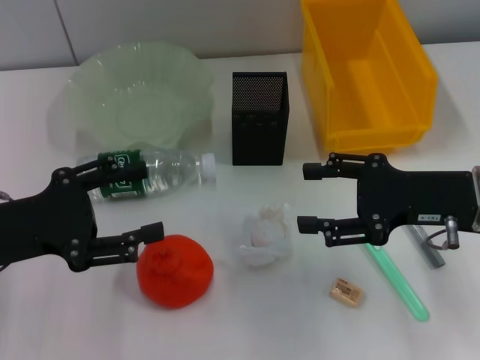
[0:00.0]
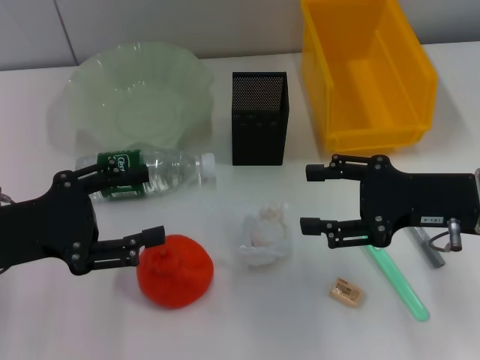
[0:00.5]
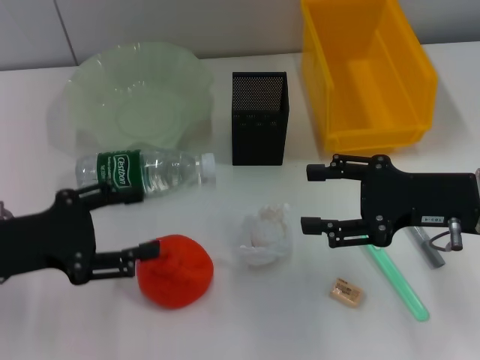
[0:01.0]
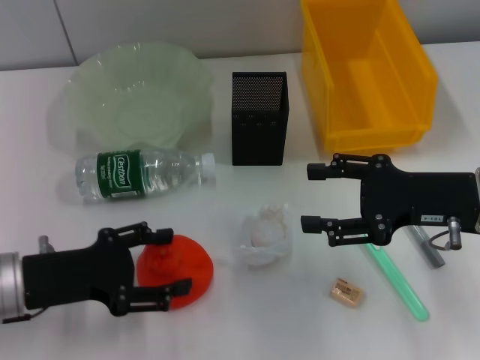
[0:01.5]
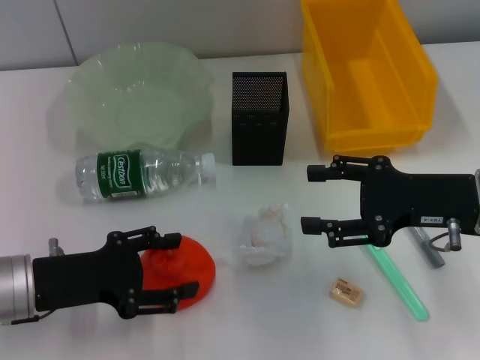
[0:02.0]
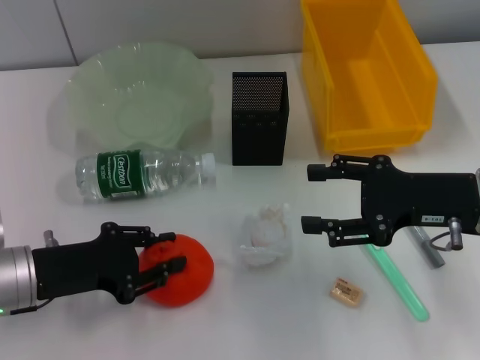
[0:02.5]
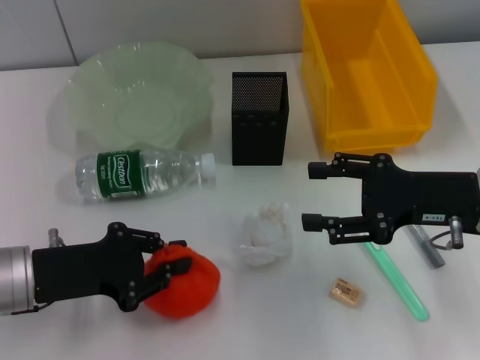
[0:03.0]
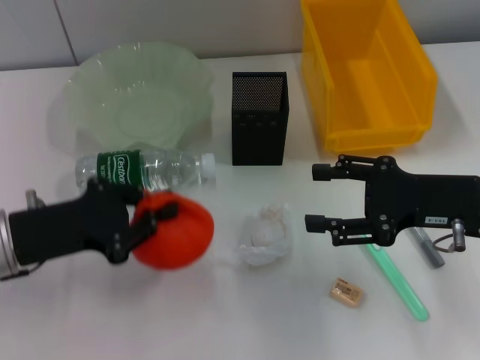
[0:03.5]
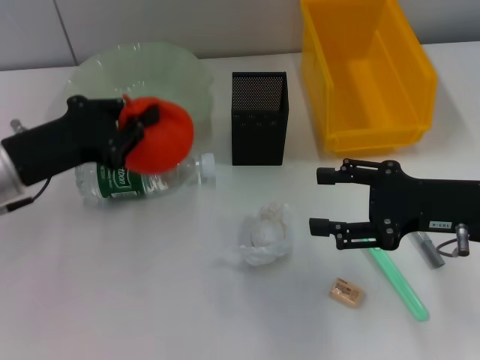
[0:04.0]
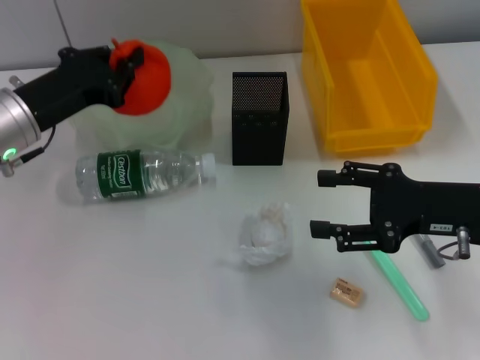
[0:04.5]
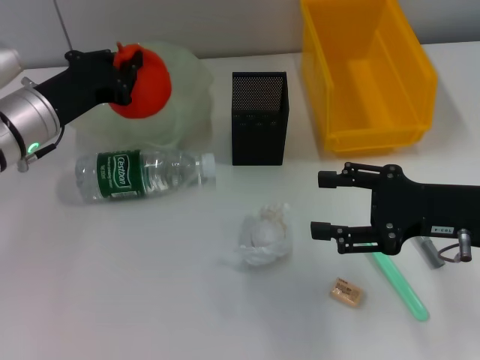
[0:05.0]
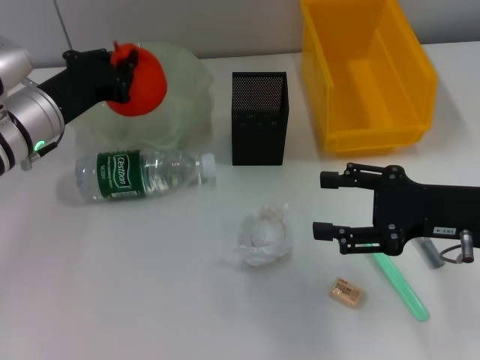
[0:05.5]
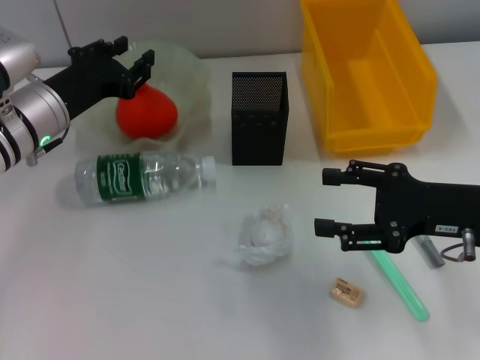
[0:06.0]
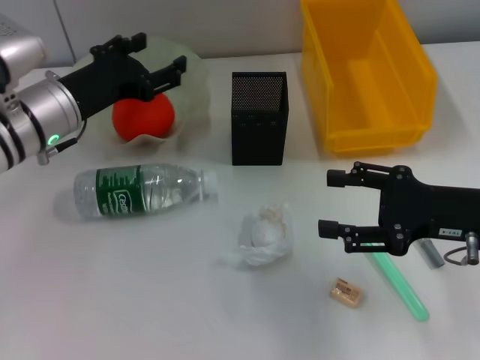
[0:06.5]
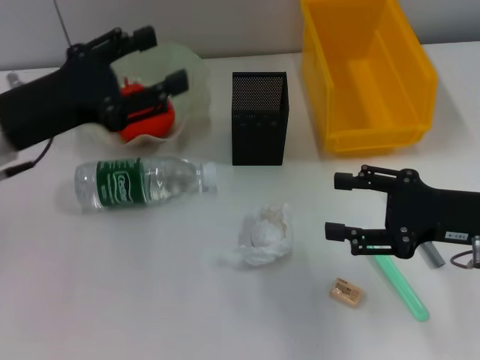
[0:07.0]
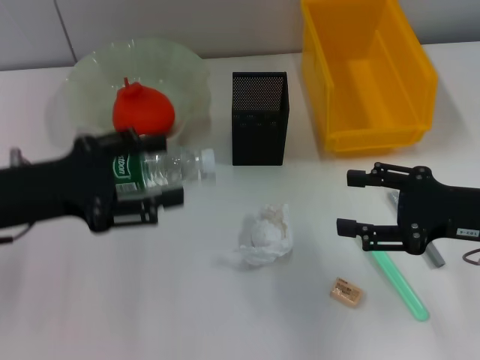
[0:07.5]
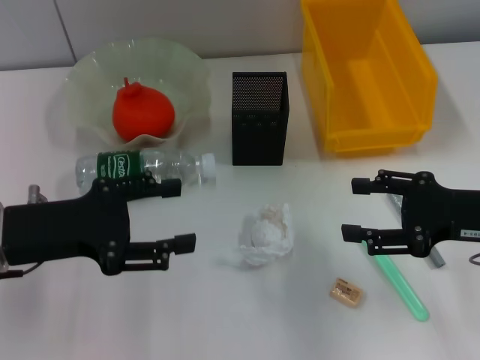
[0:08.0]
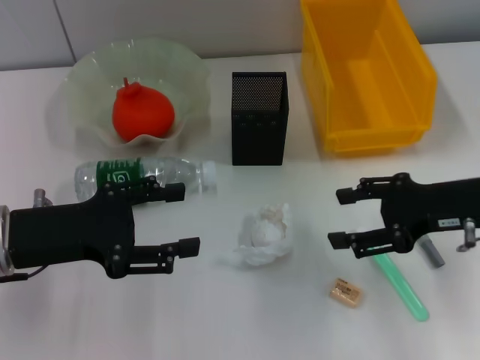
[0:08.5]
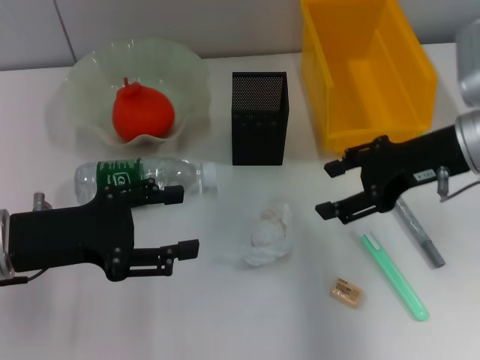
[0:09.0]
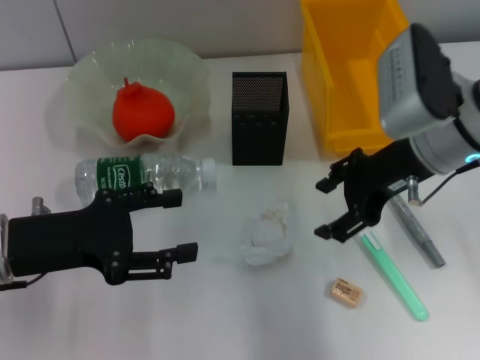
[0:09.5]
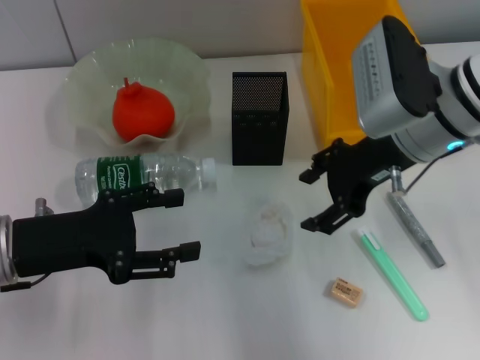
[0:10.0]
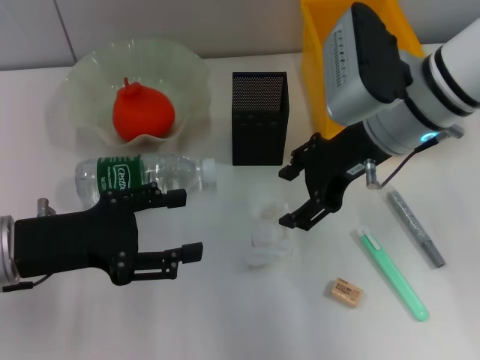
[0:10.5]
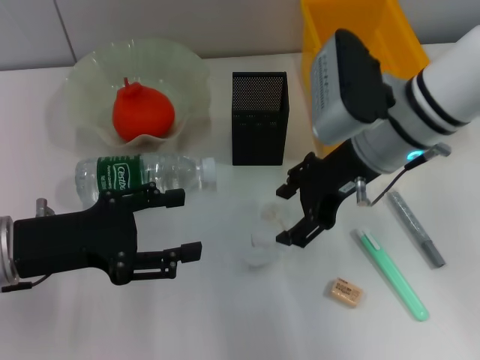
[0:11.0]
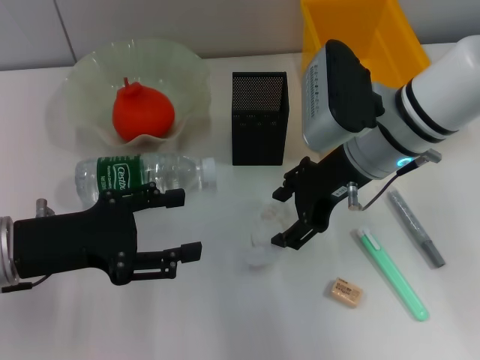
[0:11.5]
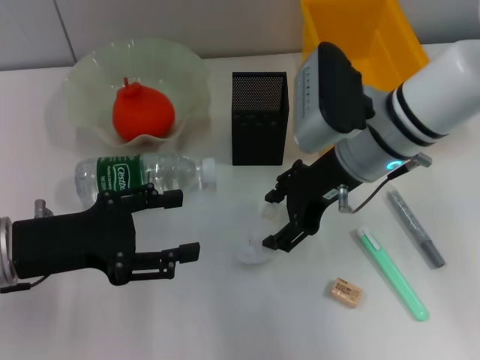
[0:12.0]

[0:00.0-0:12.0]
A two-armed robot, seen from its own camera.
Step, 0:00.0 to 0:02.5: Grab the orange with the left hand.
Step, 0:03.0 to 0:06.0: Place the orange into the fruit bowl with the left hand.
0:00.0 to 0:02.0: The left gripper moves downward, roughly 5 cm.
0:02.0 to 0:04.0: The left gripper shifts about 10 cm forward and upward, and closes its fingers.
0:04.0 to 0:06.0: The left gripper shifts approximately 5 cm forward, and opens.
0:06.0 to 0:08.0: The left gripper moves backward, roughly 10 cm, and opens.
0:08.0 to 0:10.0: The right gripper shifts some 15 cm to the left, forward and upward.
0:10.0 to 0:12.0: The right gripper moves roughly 5 cm.

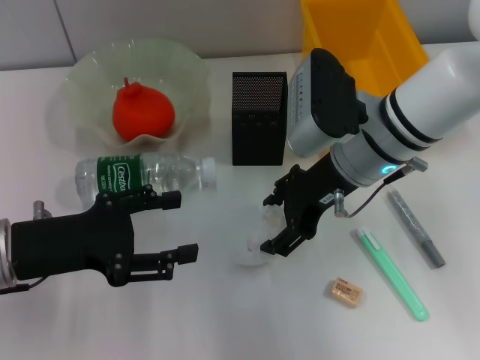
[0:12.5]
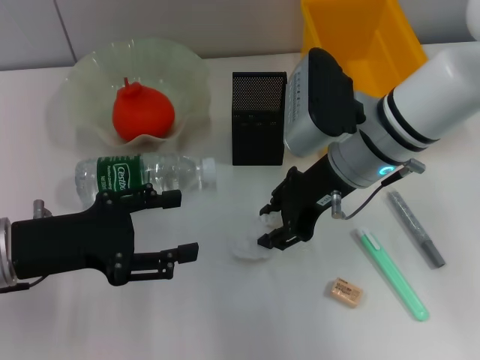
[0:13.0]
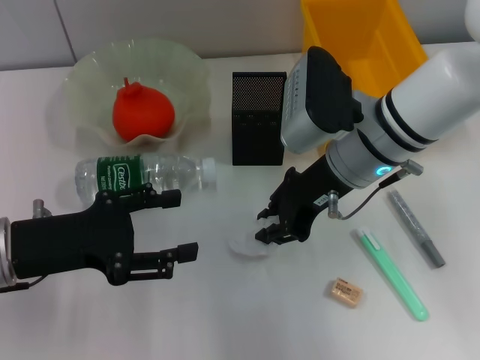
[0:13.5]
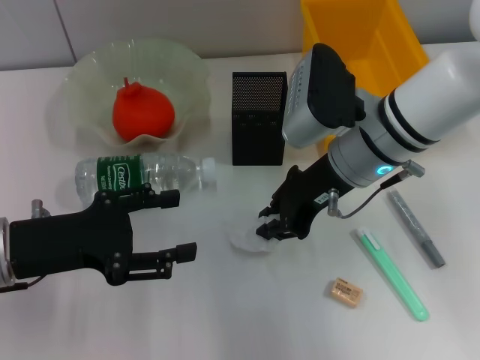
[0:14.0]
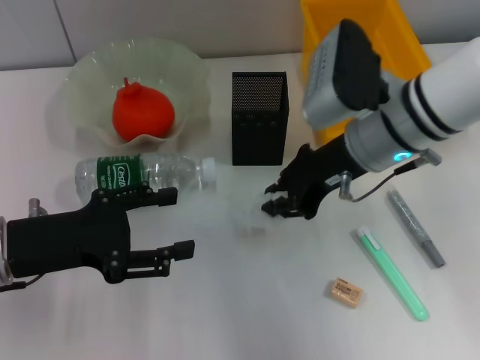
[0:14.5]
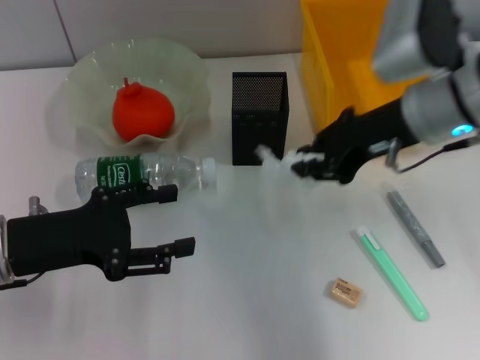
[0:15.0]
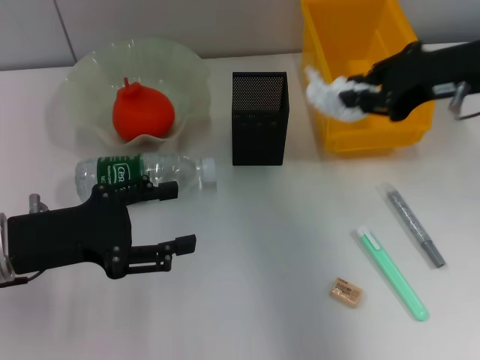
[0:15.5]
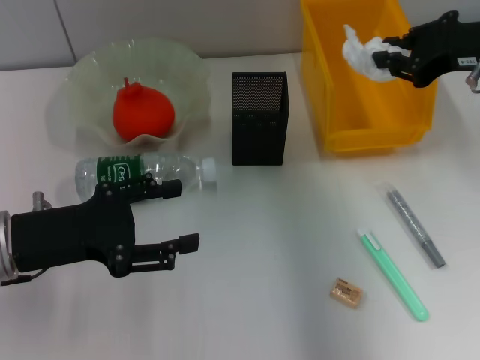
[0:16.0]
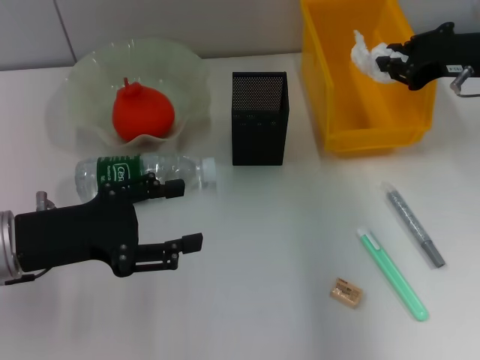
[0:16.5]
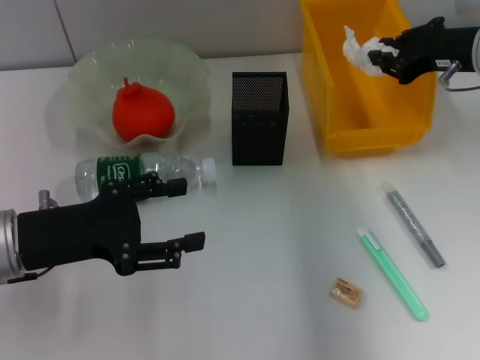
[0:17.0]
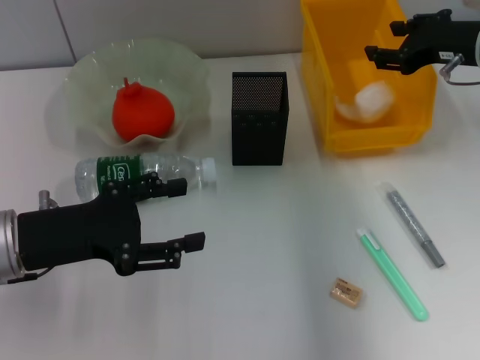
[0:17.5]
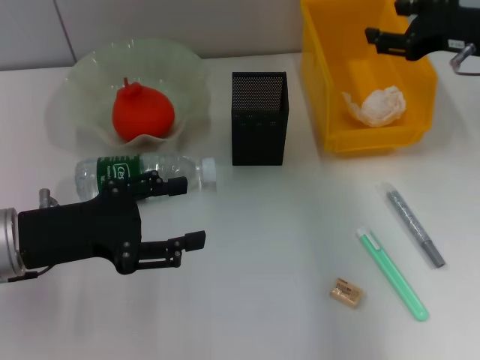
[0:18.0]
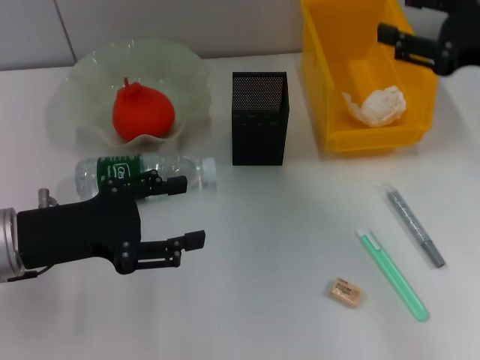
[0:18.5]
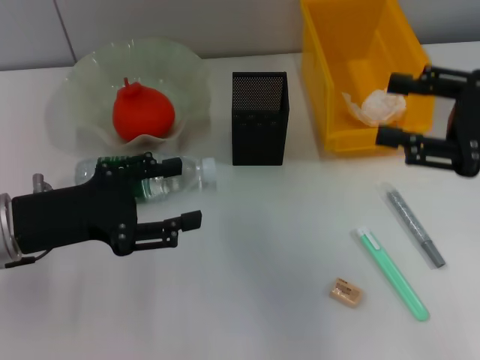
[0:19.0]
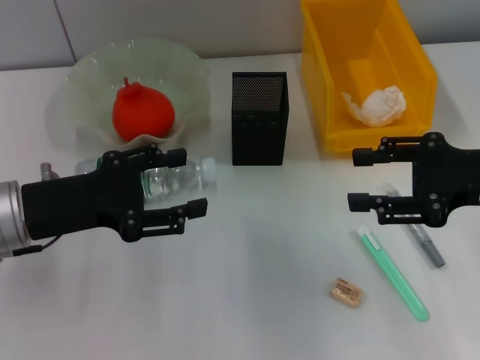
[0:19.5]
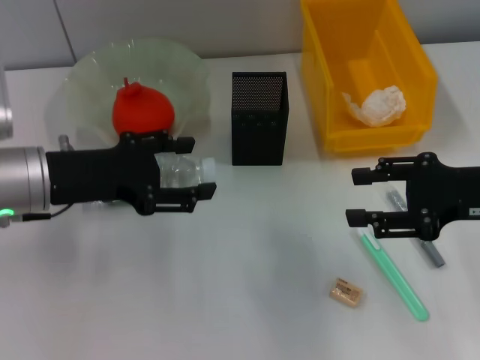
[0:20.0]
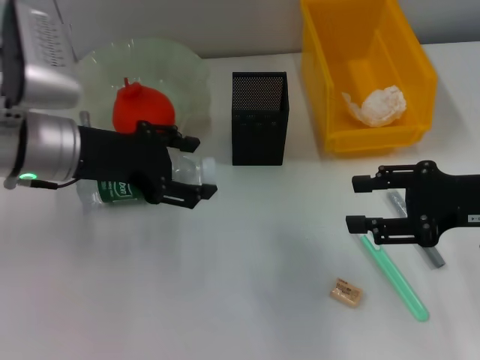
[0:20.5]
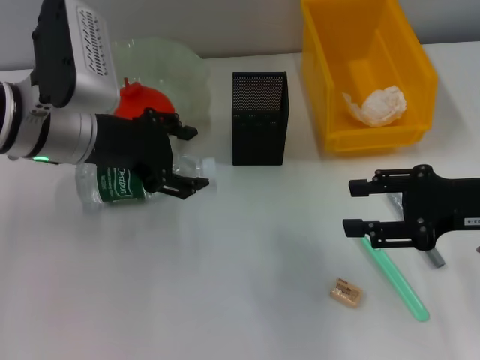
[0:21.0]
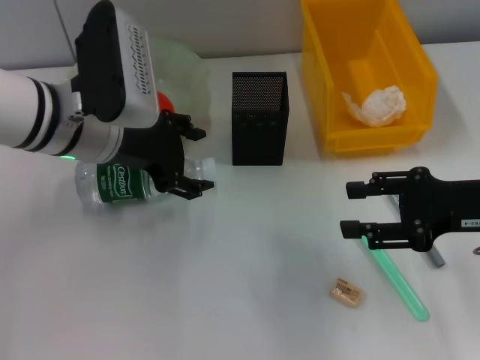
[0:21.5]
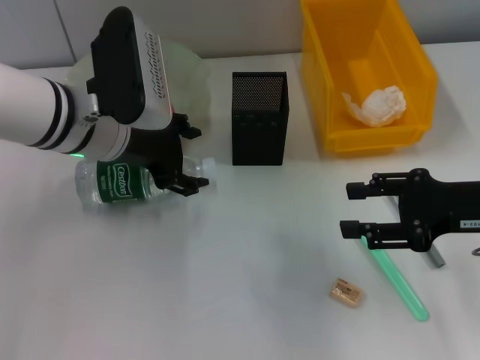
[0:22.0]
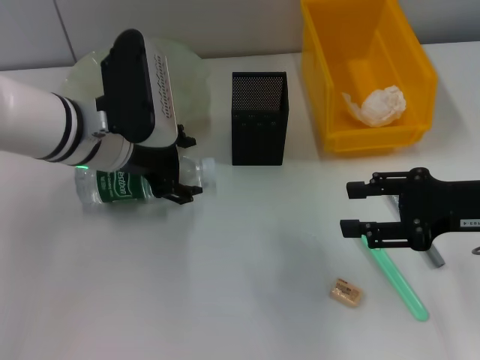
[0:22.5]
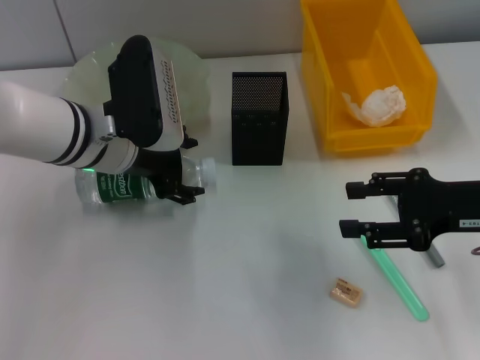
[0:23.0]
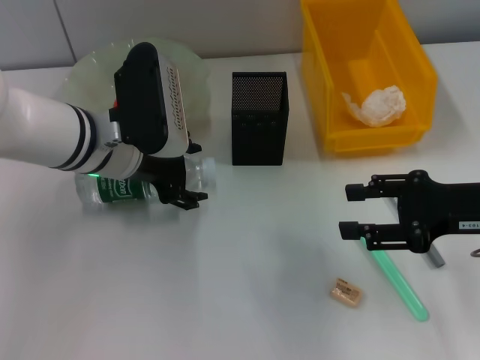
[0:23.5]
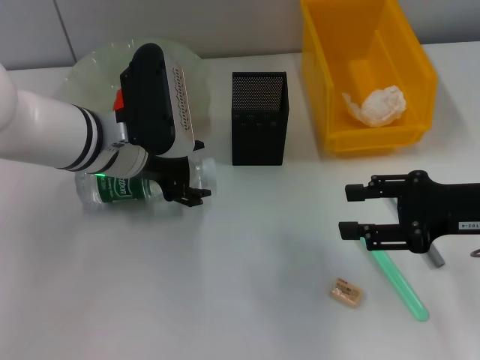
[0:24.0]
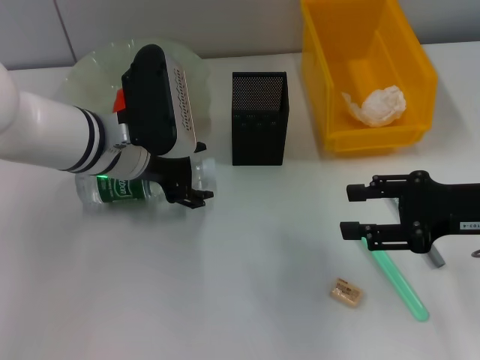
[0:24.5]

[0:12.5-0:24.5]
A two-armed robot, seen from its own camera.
Step, 0:14.0 to 0:18.0: Place the paper ball into the trash can with the right hand.
0:12.5 to 0:14.5: The right gripper closes.
0:14.5 to 0:16.5: The right gripper travels to the right by roughly 15 cm.
0:16.5 to 0:18.5: The right gripper travels backward by some 5 cm, and opens.
0:18.5 to 0:20.5: The right gripper shifts approximately 5 cm downward. Meanwhile the left gripper goes about 10 cm forward and to the right.
0:20.5 to 0:22.5: The left gripper moves about 5 cm.
0:22.5 to 0:24.5: There are only small adjustments of the grippers.

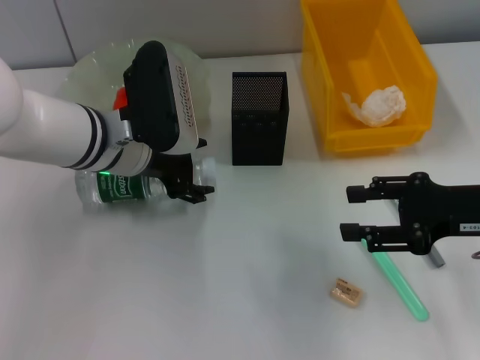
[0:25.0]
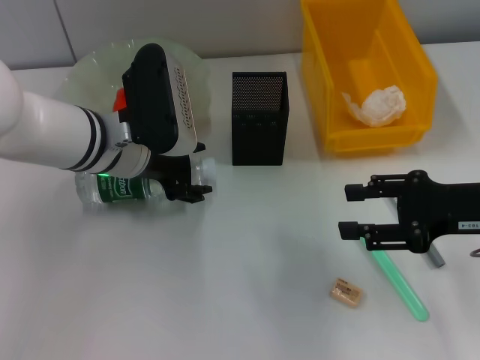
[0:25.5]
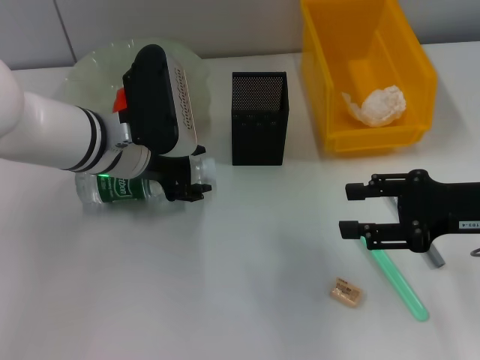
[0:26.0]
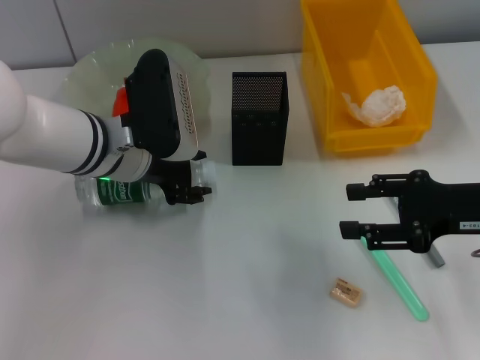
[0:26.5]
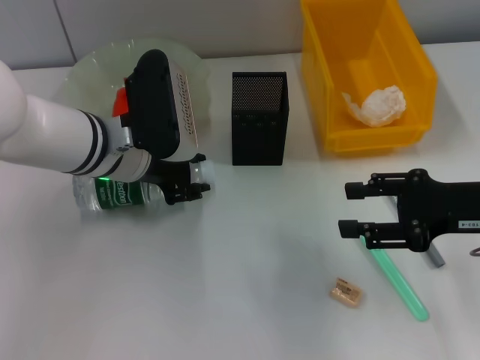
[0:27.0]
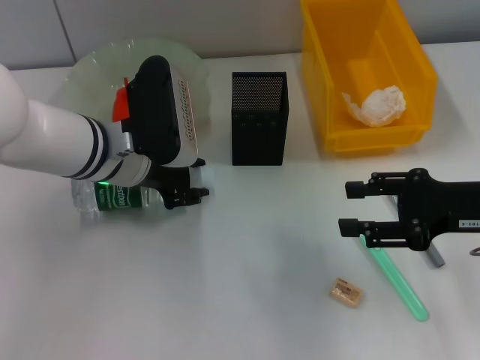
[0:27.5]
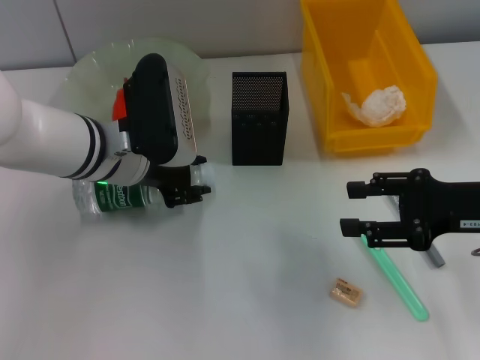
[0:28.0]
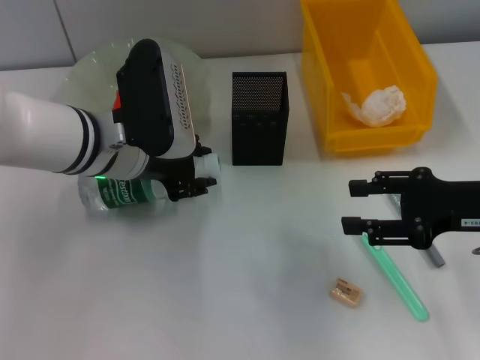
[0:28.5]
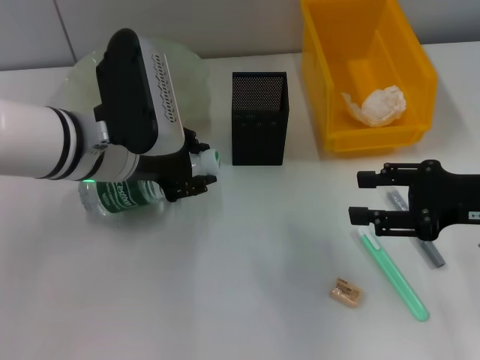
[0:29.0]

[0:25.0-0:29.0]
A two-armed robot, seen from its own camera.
0:25.0 to 0:27.0: The left gripper closes its fingers.
0:27.0 to 0:29.0: The grippers stay close to where they were, moving slightly.
